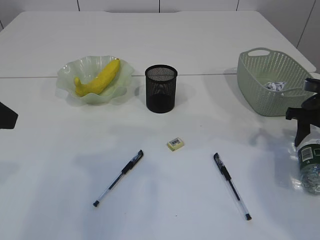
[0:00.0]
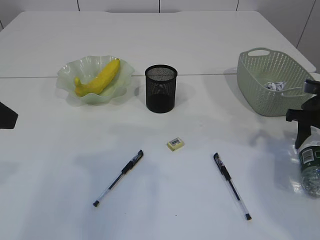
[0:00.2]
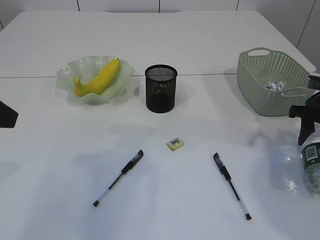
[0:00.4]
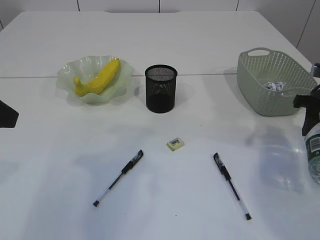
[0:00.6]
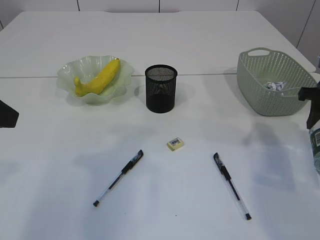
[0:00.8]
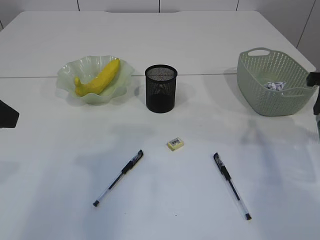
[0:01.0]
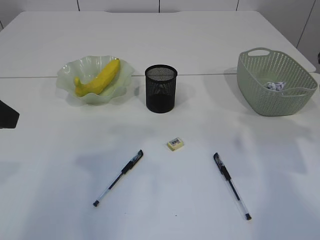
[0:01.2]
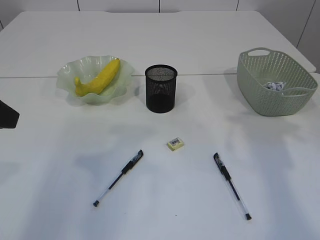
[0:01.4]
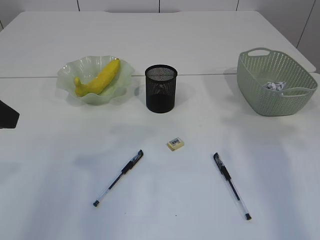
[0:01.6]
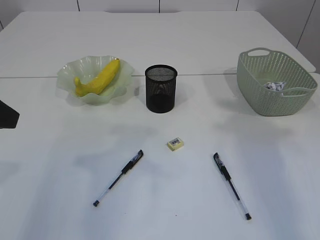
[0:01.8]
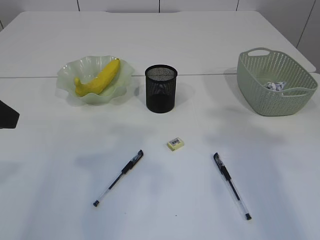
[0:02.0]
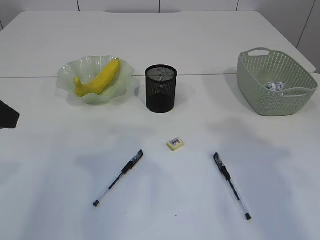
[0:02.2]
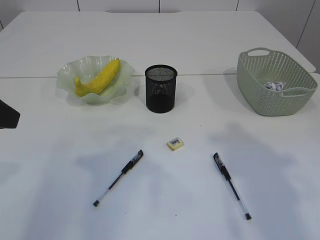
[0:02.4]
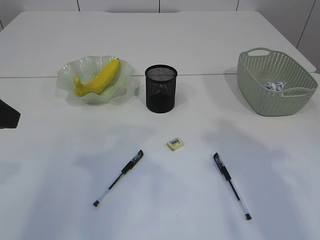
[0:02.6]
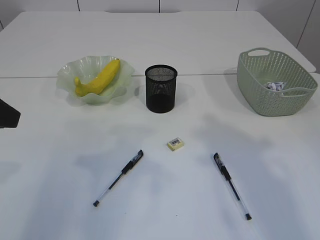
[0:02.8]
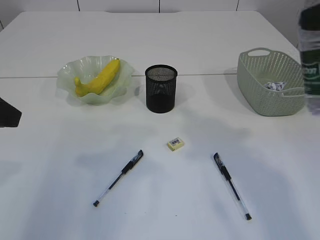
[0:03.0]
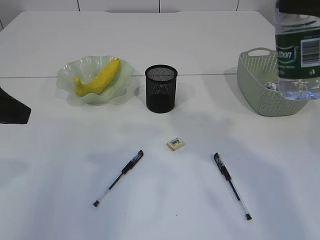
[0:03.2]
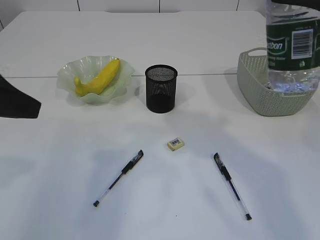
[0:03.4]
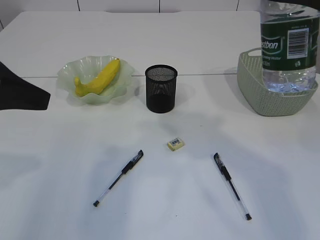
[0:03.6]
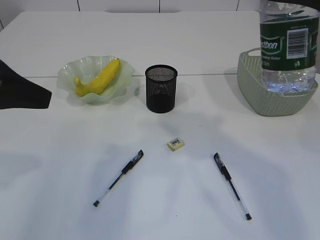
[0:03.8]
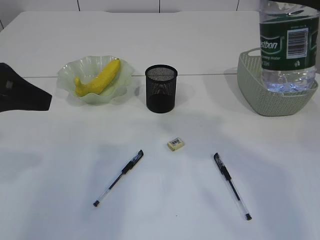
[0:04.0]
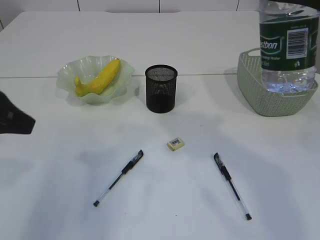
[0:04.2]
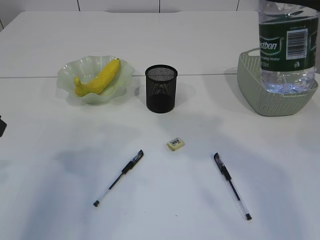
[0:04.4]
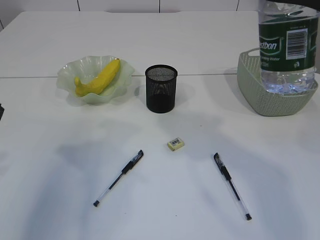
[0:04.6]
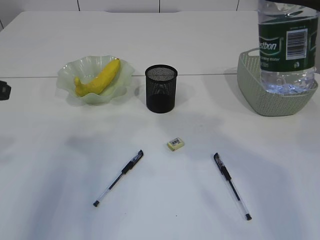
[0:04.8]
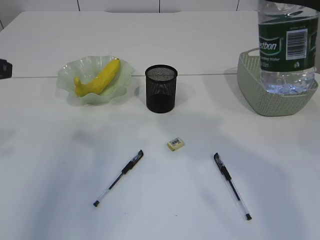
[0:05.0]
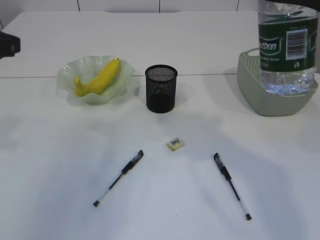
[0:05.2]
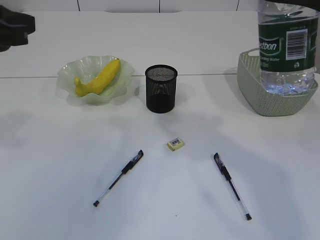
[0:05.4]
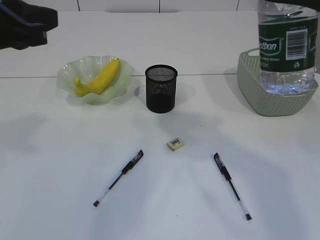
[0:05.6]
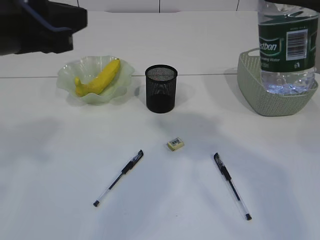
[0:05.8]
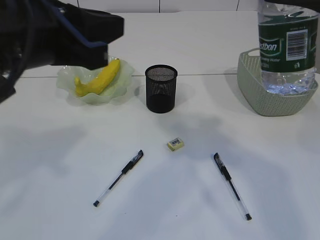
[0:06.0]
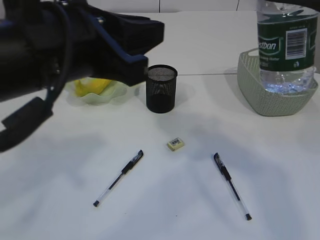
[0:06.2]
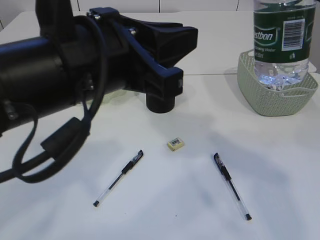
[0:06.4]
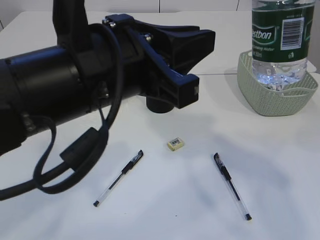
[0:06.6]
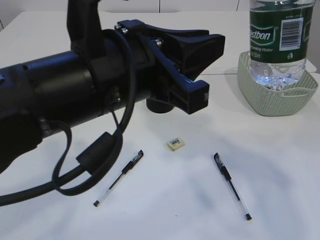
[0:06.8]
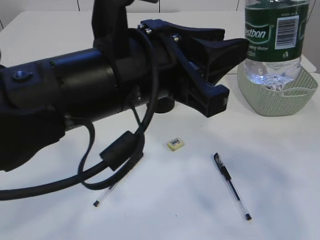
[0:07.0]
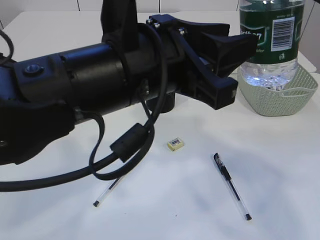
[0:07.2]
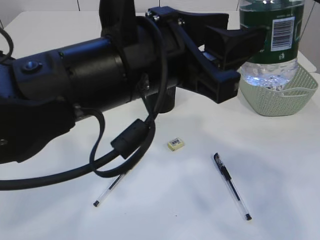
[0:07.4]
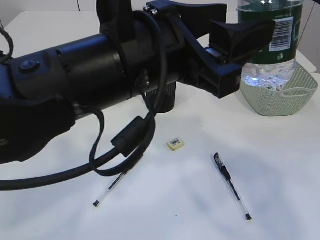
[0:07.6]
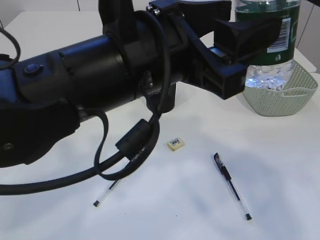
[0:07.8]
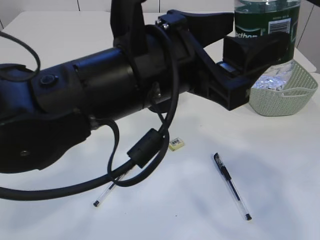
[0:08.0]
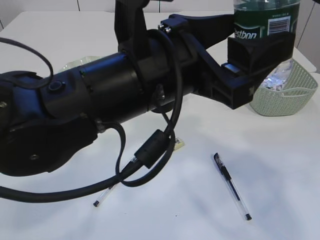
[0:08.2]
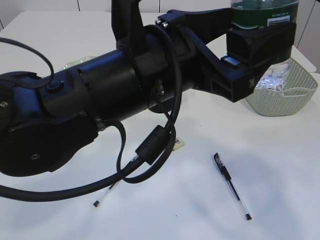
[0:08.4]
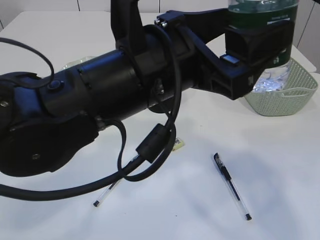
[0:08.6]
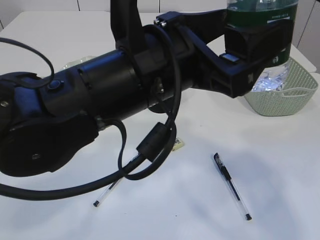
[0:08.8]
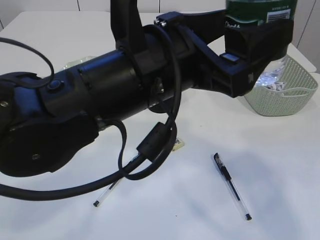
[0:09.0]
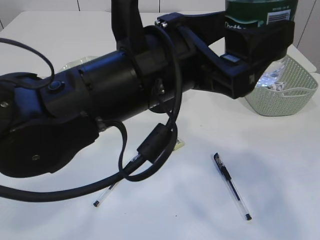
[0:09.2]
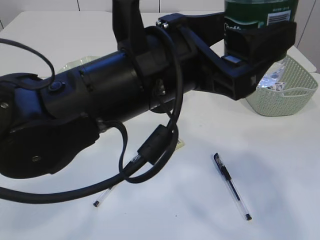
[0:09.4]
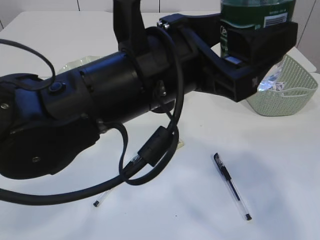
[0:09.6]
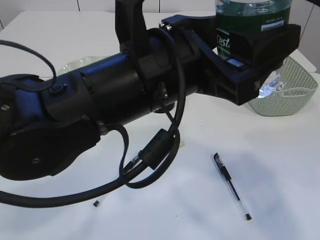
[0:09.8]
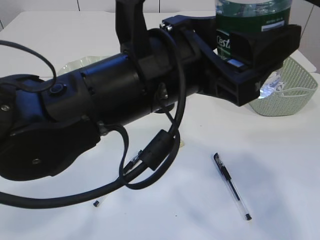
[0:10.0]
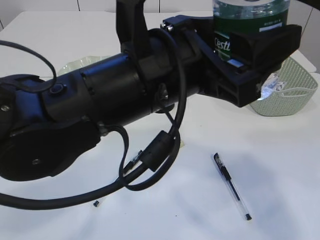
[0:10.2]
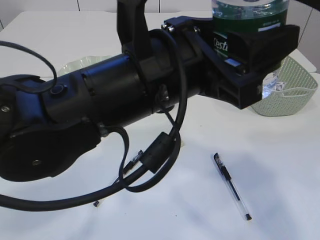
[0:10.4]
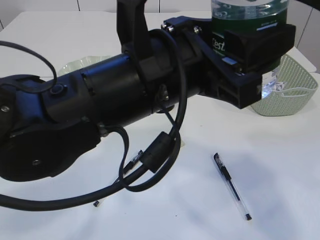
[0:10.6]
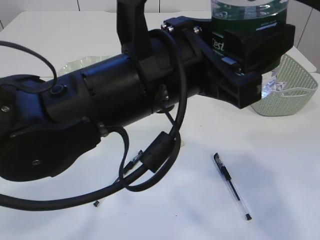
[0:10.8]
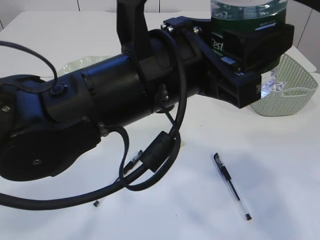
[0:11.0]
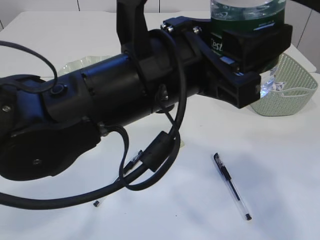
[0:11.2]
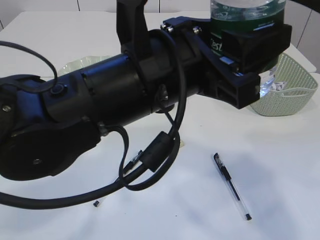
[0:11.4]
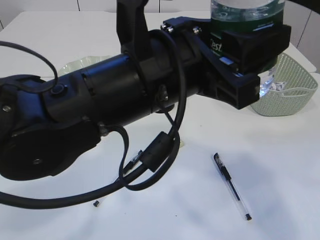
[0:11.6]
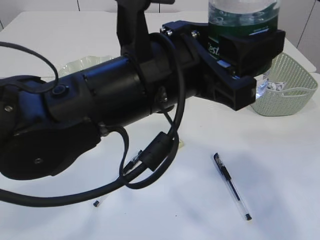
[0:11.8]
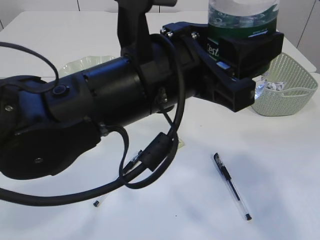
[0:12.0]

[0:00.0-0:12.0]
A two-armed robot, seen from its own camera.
0:00.0 to 0:01.6: The right gripper is displaced upward and backward by about 25 cm.
0:01.6 to 0:03.0: The right gripper is displaced backward and to the left by some 10 cm.
0:04.4 to 0:06.0: The left gripper goes roughly 15 cm to the right and upward.
0:06.0 to 0:07.6: The left gripper is displaced to the right by approximately 10 cm, and opens its fingers.
0:09.0 to 0:10.4: There are only small adjustments of the grippers.
0:10.4 to 0:12.0: Neither gripper changes place.

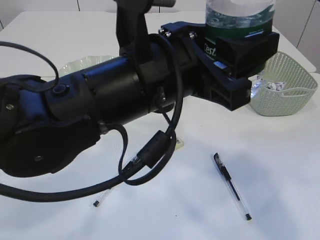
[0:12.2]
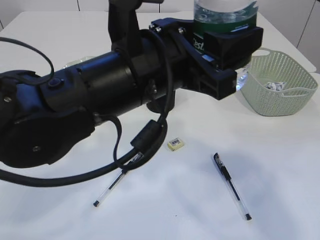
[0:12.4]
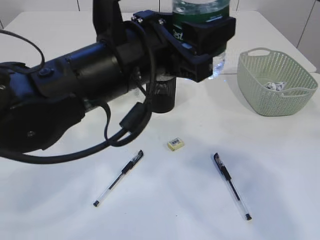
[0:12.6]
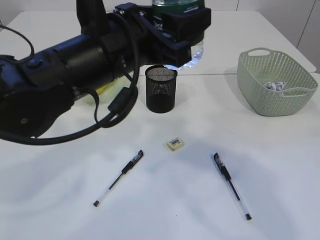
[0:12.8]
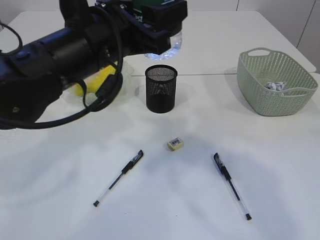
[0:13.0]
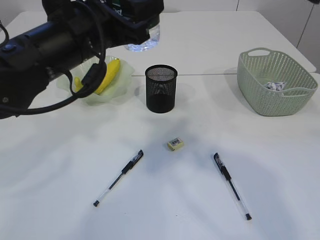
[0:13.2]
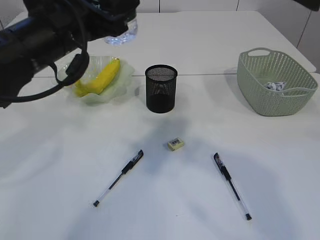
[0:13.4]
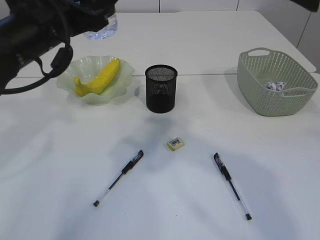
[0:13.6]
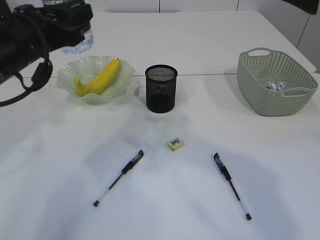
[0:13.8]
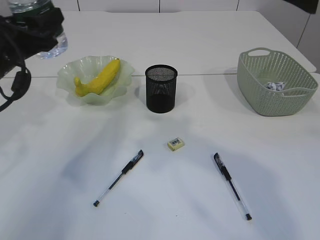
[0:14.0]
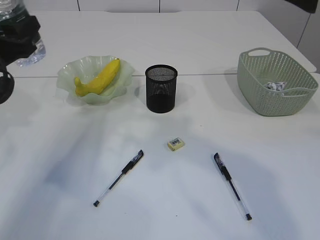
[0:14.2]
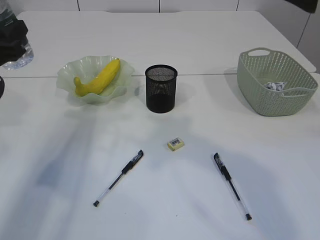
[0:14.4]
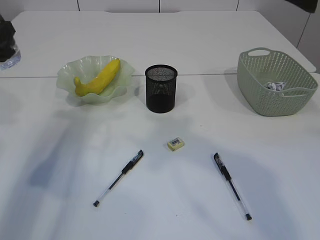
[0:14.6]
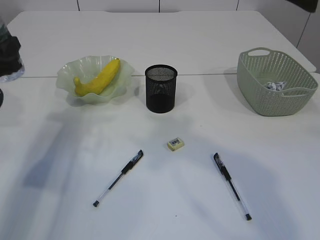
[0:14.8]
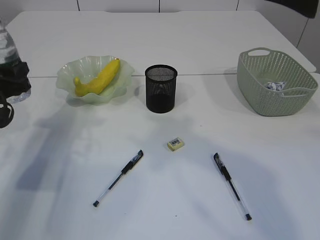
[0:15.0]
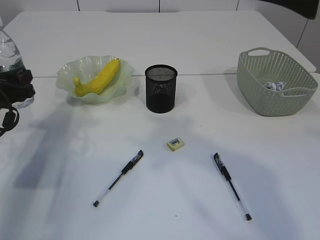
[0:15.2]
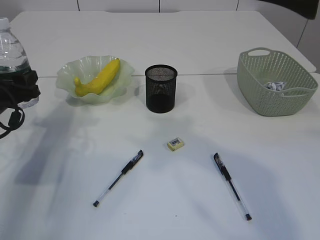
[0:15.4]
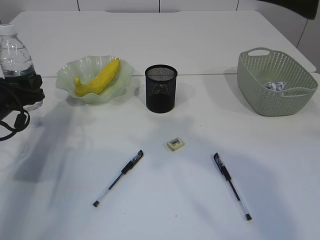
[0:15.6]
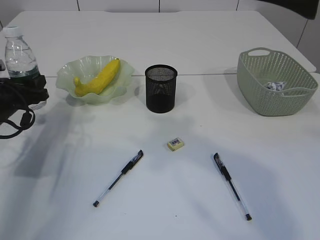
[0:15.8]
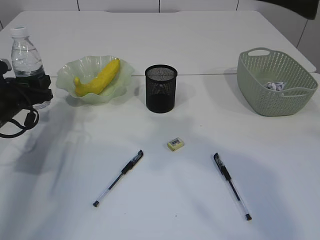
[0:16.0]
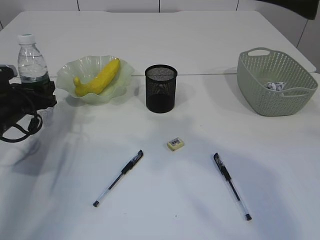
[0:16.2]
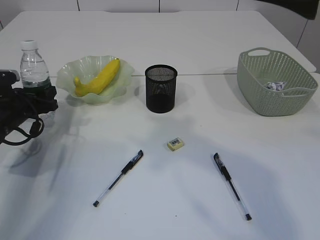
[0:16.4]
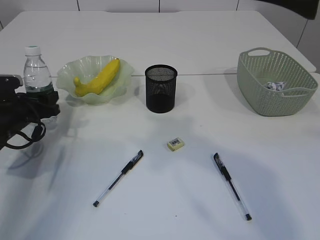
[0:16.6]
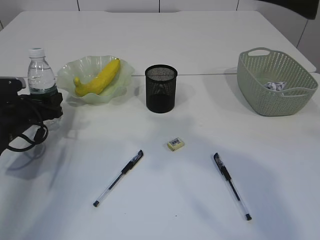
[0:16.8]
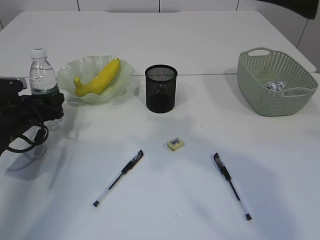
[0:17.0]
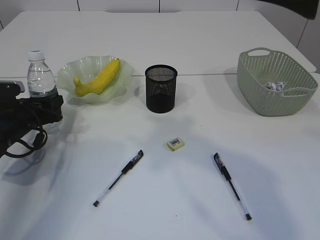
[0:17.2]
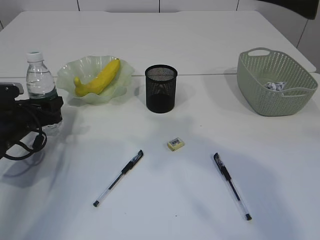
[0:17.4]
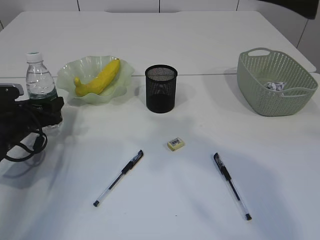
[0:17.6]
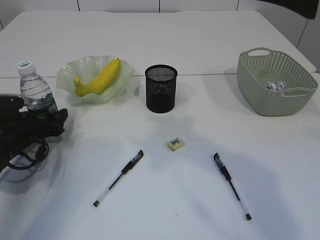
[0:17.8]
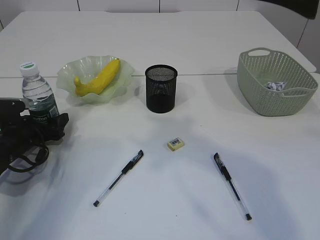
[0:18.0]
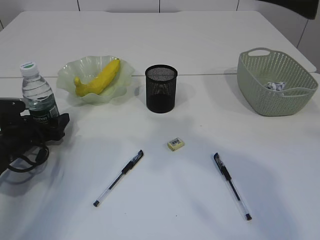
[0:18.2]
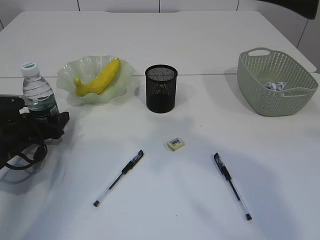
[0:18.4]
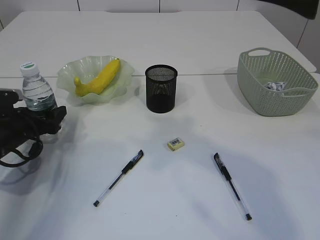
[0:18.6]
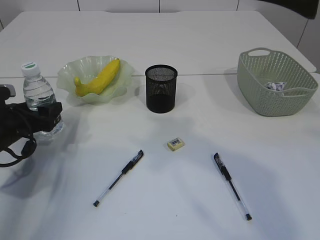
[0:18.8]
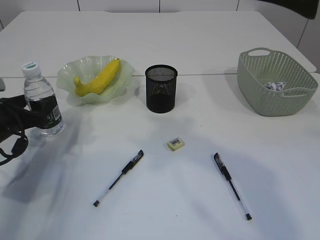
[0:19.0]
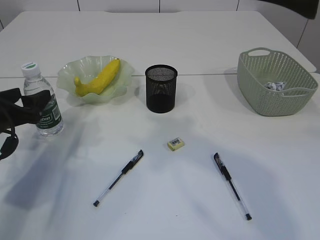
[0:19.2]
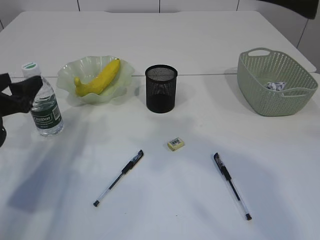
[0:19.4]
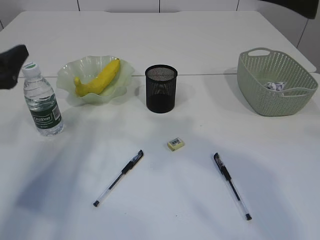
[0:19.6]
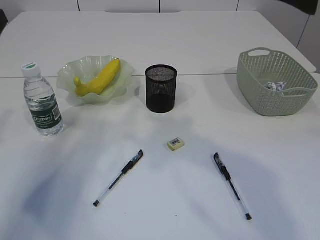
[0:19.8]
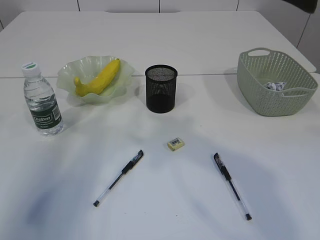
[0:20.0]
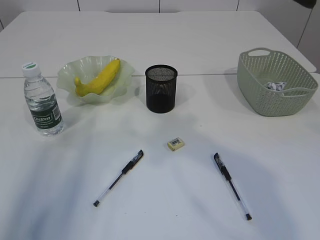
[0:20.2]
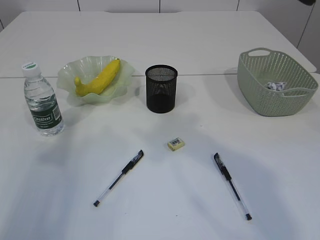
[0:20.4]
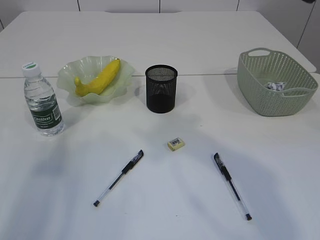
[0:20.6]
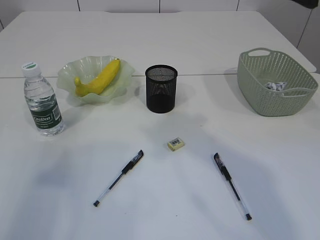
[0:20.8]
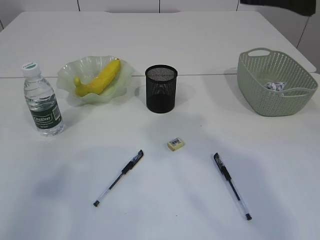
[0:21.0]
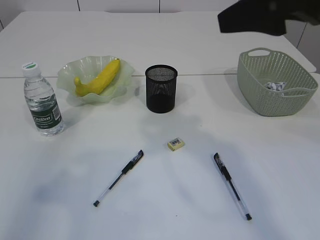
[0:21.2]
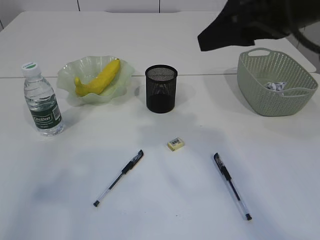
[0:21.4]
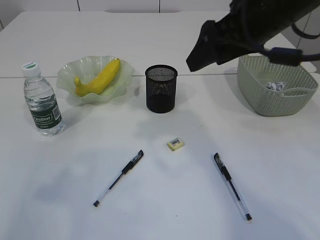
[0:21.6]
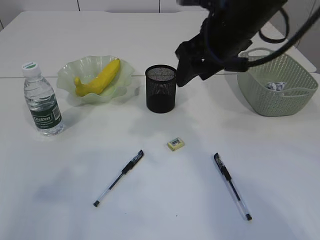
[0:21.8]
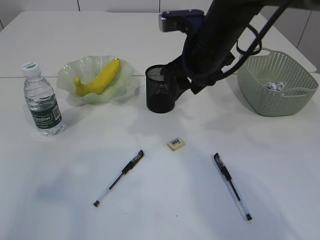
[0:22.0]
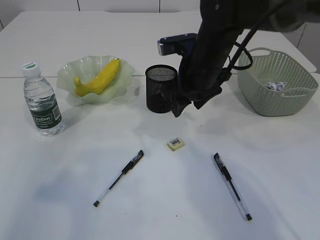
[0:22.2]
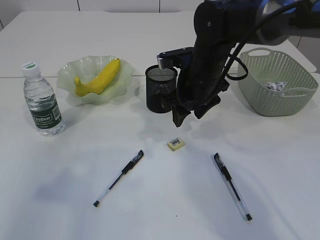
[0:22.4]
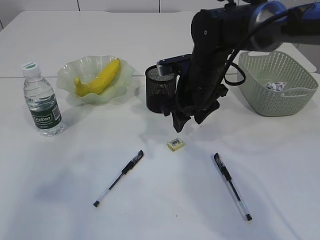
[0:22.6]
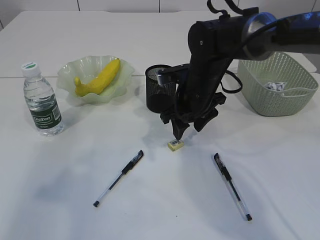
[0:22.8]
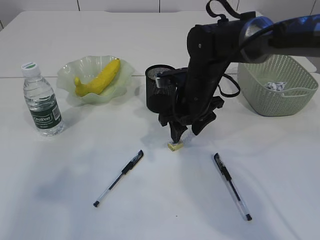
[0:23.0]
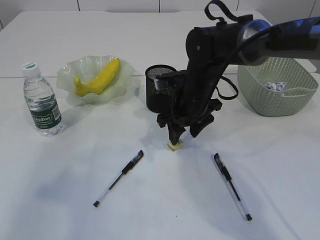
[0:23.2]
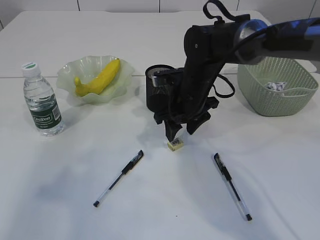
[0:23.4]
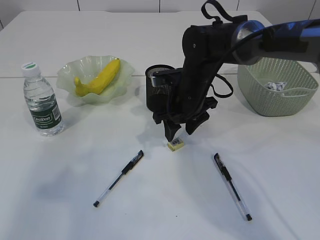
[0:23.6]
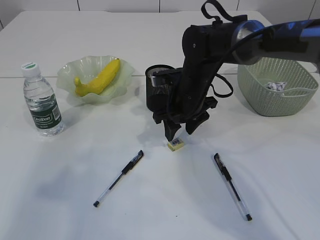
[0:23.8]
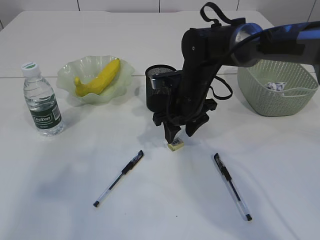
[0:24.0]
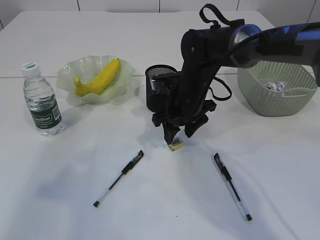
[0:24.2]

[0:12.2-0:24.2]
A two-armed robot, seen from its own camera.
Step, 0:12.8 to 0:19.4: Place the bottle.
0:12.2 to 0:13.8: The left gripper goes some 20 cm to the left and forward.
0:13.8 to 0:15.2: The left gripper goes approximately 15 cm downward and to the left.
0:15.2 to 0:16.6: The left gripper is displaced downward and forward by roughly 10 cm.
0:16.6 to 0:18.2: The left gripper ends up some 5 cm from where it was.
0:18.2 to 0:19.8: The left gripper goes approximately 25 cm upward and backward.
0:19.8 to 0:21.2: The left gripper heads backward and upward, covering about 15 cm.
0:21.2 to 0:22.6: The right gripper moves downward, forward and to the left, some 25 cm.
0:22.6 to 0:24.2: The grippers stay close to where they were, moving slightly.
